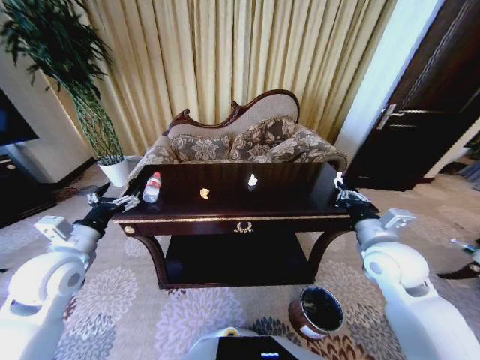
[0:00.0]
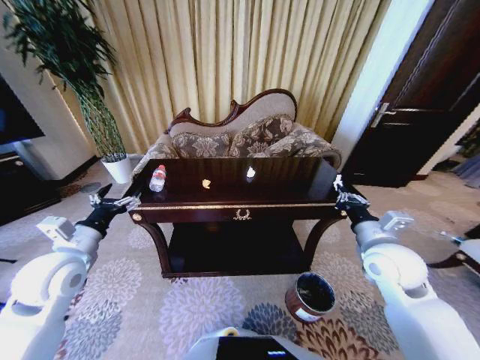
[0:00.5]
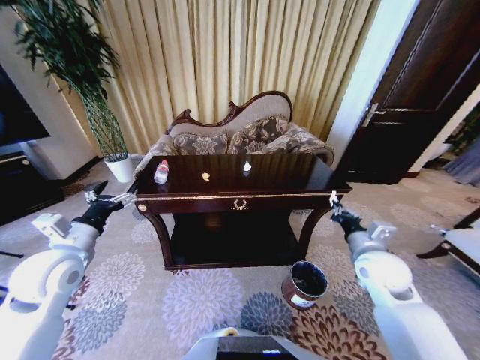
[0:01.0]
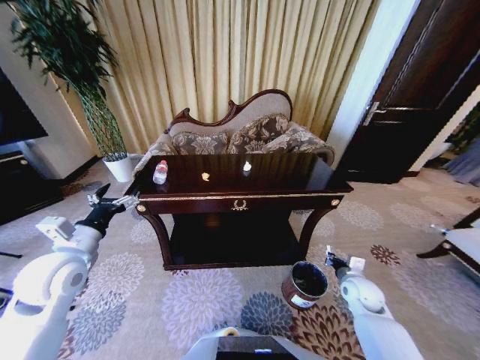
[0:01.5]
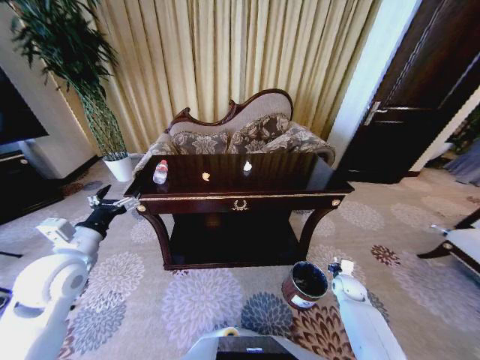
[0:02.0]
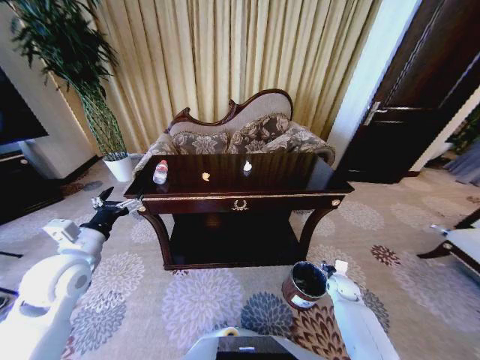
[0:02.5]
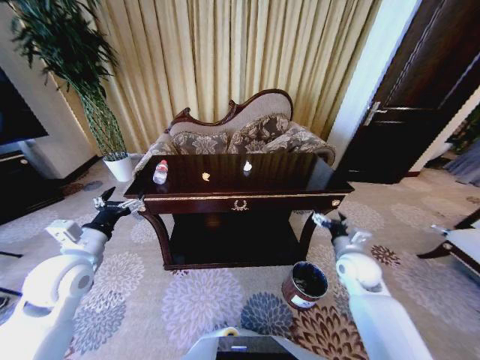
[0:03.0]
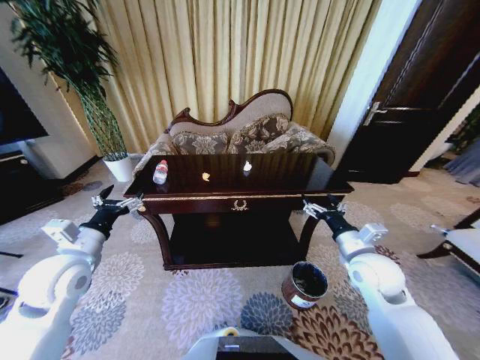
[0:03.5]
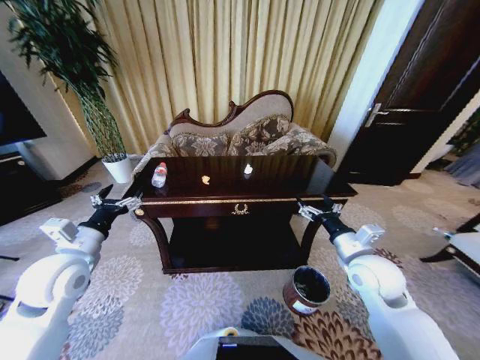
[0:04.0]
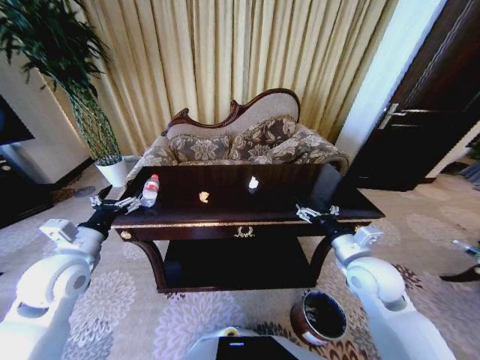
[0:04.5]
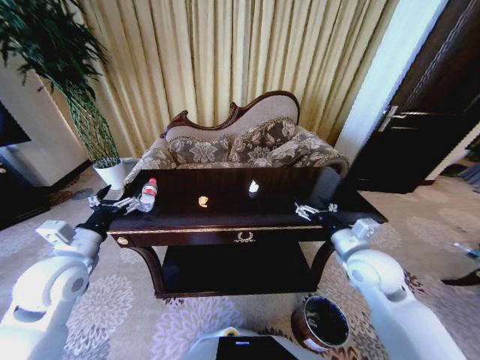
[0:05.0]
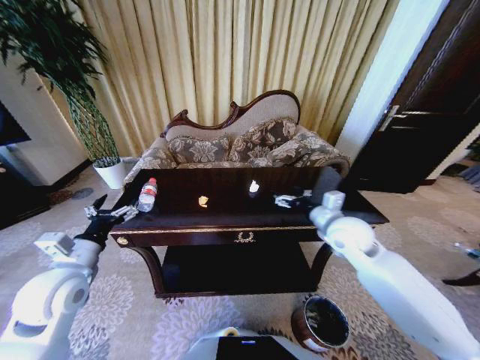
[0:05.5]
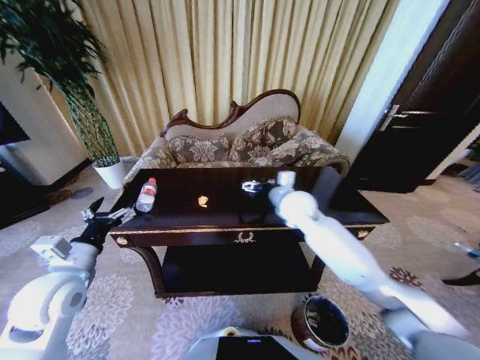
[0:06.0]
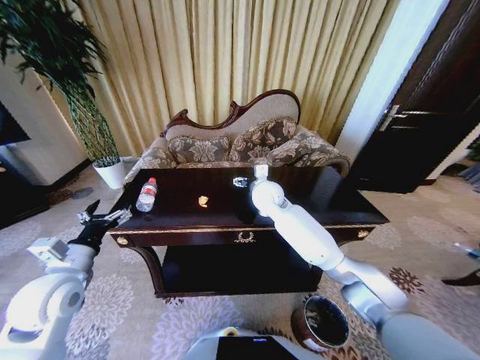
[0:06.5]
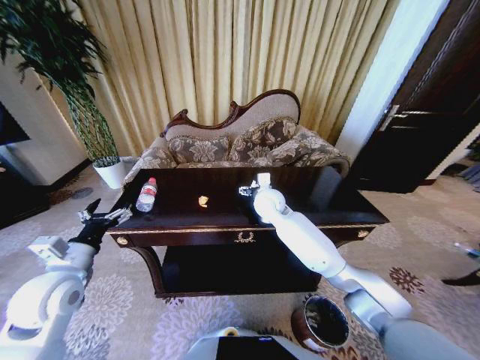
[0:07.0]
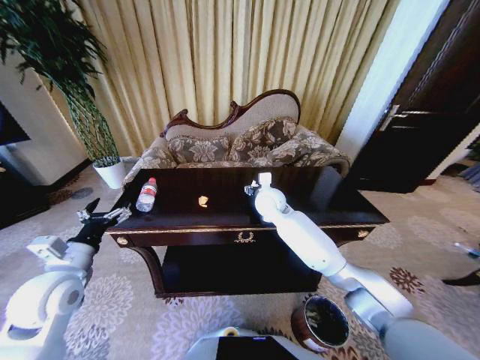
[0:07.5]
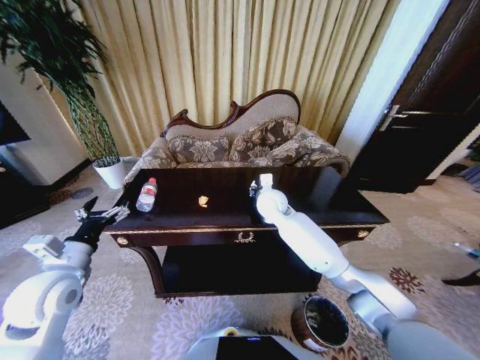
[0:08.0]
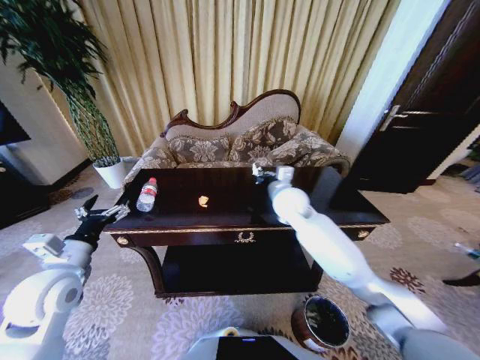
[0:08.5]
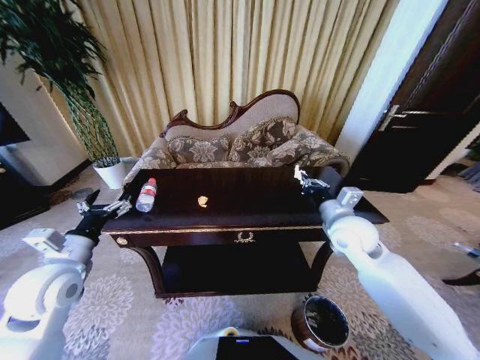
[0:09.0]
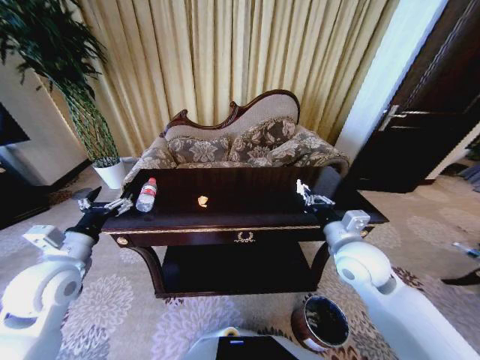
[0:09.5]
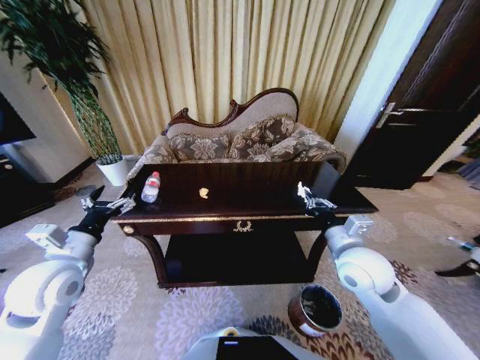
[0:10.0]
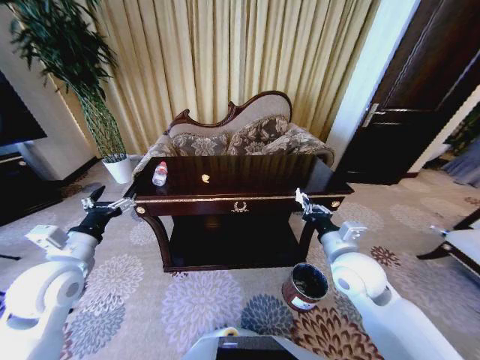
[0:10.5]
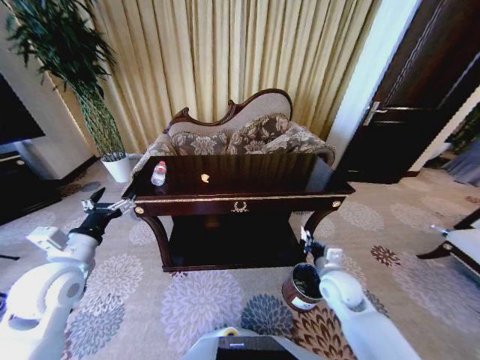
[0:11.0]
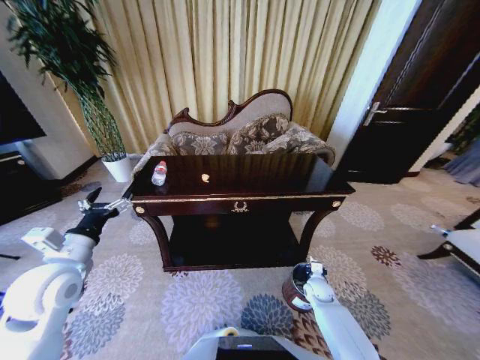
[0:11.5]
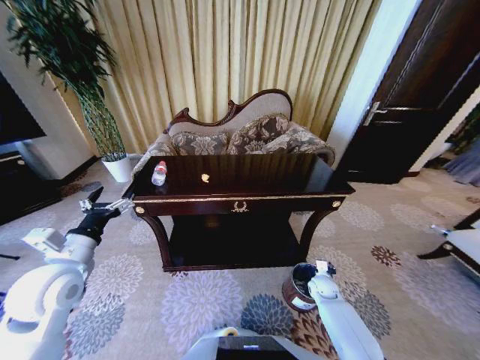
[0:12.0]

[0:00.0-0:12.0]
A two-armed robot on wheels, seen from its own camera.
Task of the whole recording: Move to the front of the table and place the trash on the table into the trash bin.
0:00.0 to 0:02.0: The right gripper goes about 30 cm downward.
0:02.0 to 0:04.0: The right gripper is displaced upward and to the left by approximately 30 cm, and opens its fingers.
0:04.0 to 0:06.0: The right gripper travels forward and to the left by about 25 cm.
0:06.0 to 0:08.0: The right gripper shifts by about 5 cm, and closes up.
0:08.0 to 0:10.0: The right gripper moves backward and to the right, roughly 25 cm.
0:10.0 to 0:12.0: The right gripper shifts approximately 35 cm downward.

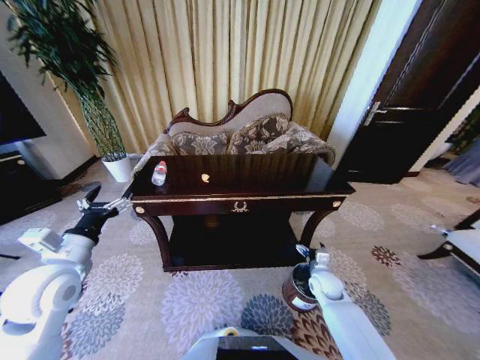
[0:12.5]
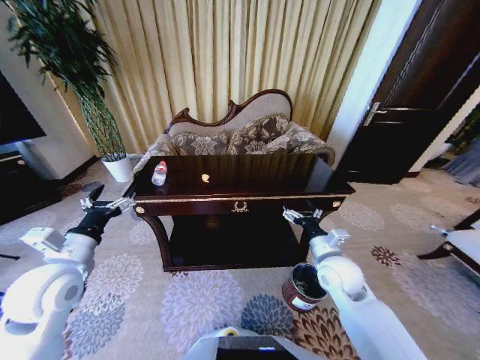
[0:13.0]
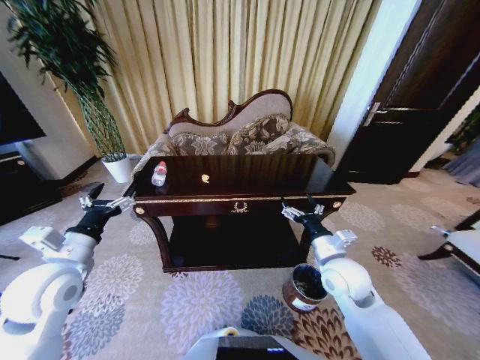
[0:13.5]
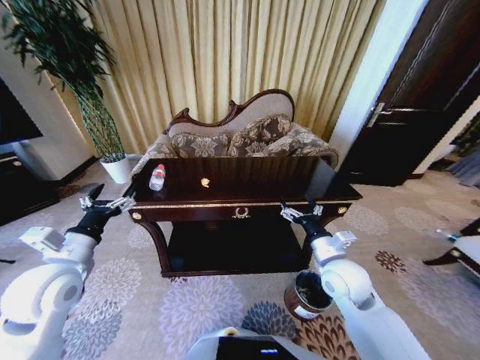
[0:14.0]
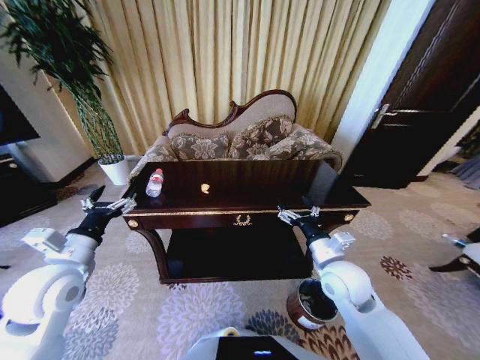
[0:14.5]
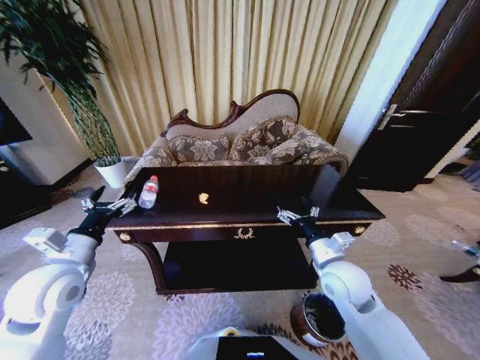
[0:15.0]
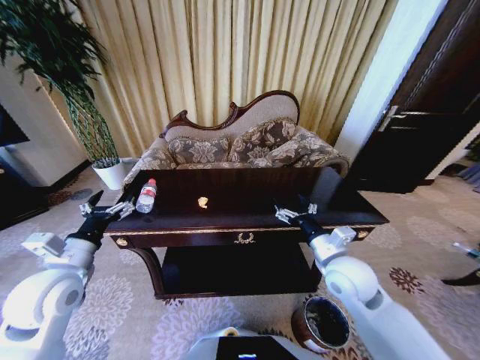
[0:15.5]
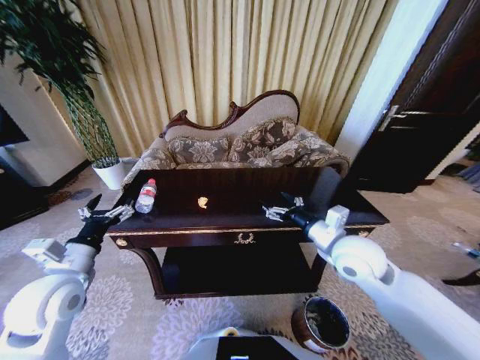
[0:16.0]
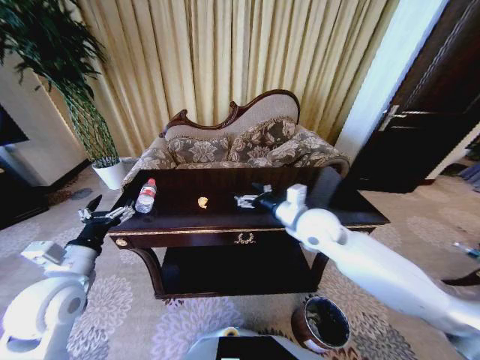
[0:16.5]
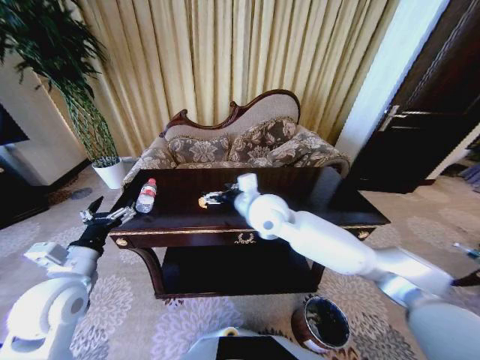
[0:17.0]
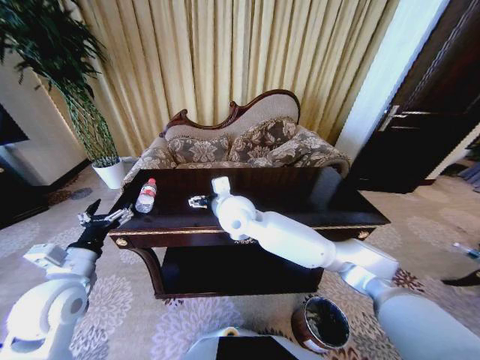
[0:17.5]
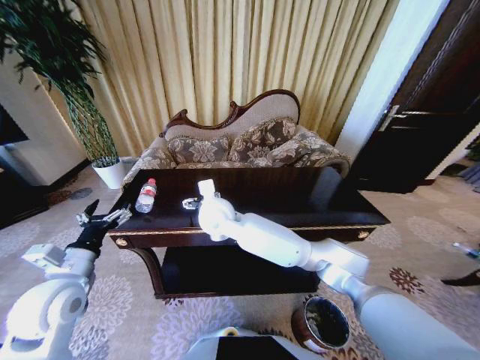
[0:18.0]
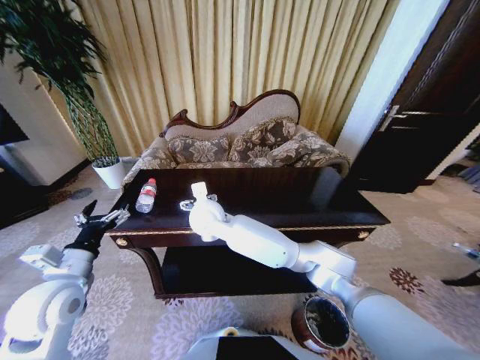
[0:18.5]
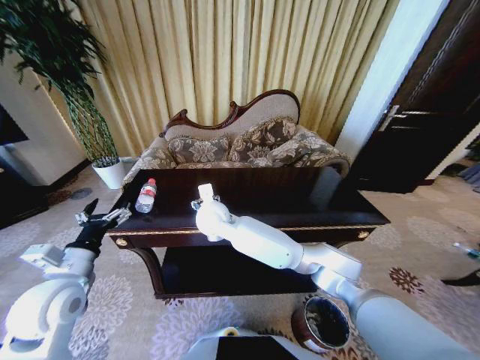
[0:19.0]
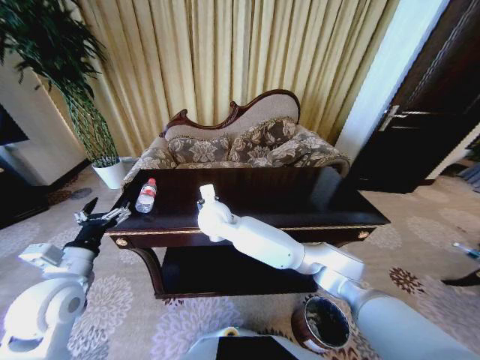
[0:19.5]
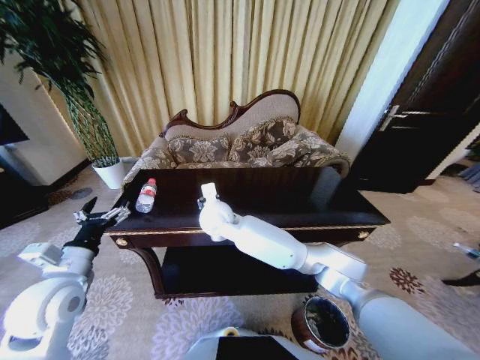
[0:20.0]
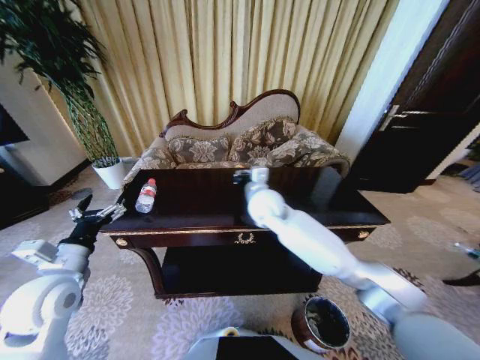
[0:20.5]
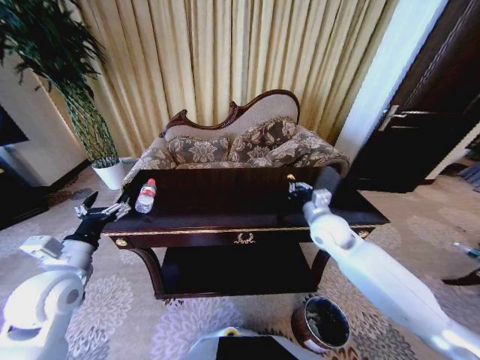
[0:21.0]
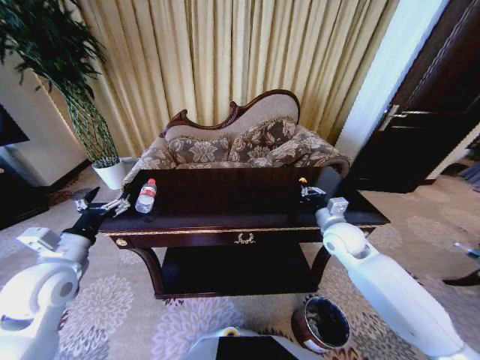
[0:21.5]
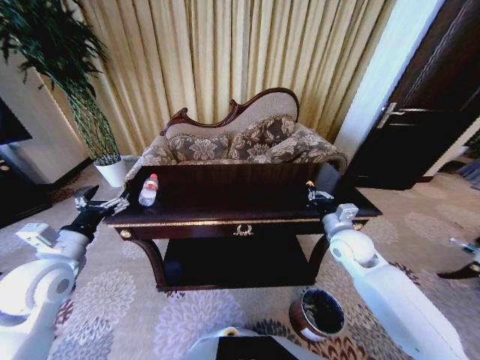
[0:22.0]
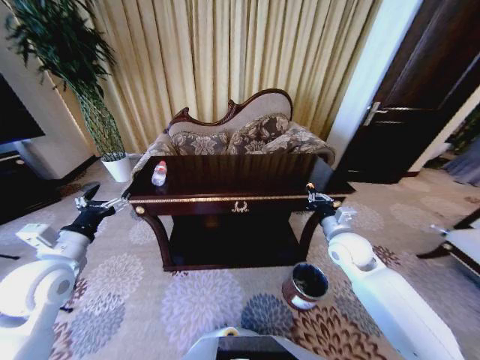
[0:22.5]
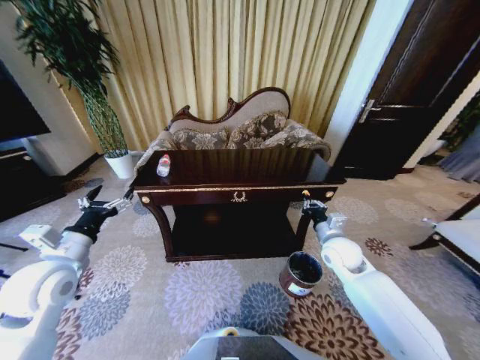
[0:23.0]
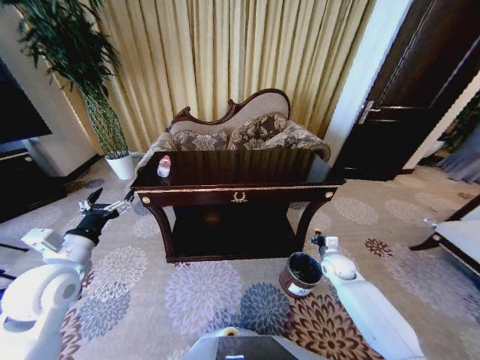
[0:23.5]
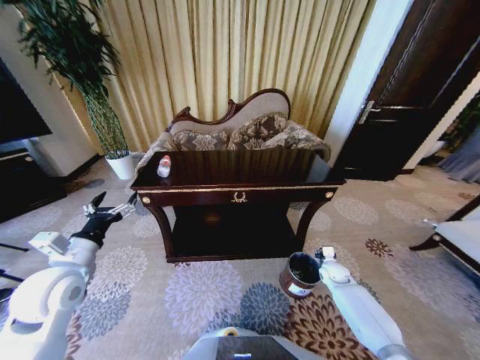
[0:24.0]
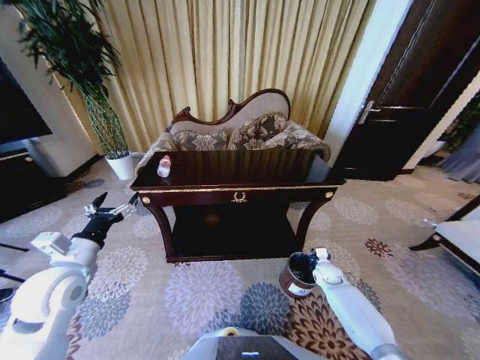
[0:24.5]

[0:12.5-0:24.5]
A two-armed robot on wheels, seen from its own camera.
Task of the whole recording: Move to the front of the table and place the trash on the table into the trash bin.
0:12.5 to 0:14.5: The right gripper is displaced upward by approximately 20 cm.
0:14.5 to 0:16.5: The right gripper travels forward, upward and to the left by about 15 cm.
0:16.5 to 0:18.5: The right gripper goes about 25 cm to the left.
0:18.5 to 0:20.5: The right gripper shifts about 15 cm to the right, and closes.
0:20.5 to 0:22.5: The right gripper heads to the right, covering some 20 cm.
0:22.5 to 0:24.5: The right gripper travels downward by roughly 25 cm.

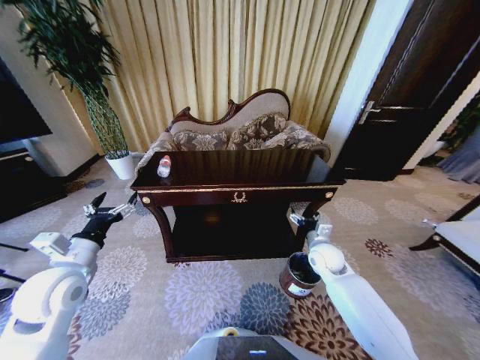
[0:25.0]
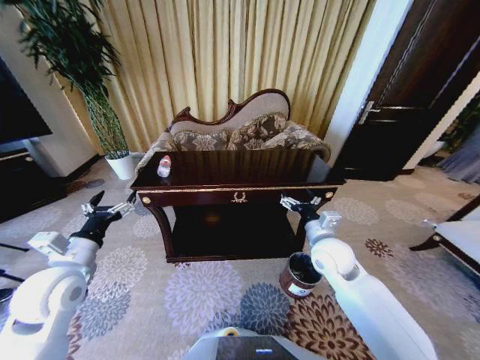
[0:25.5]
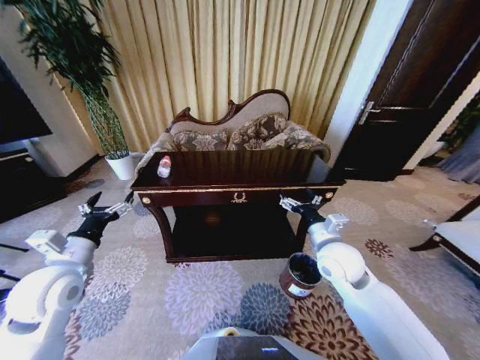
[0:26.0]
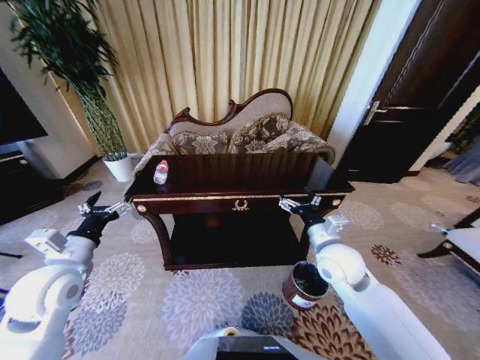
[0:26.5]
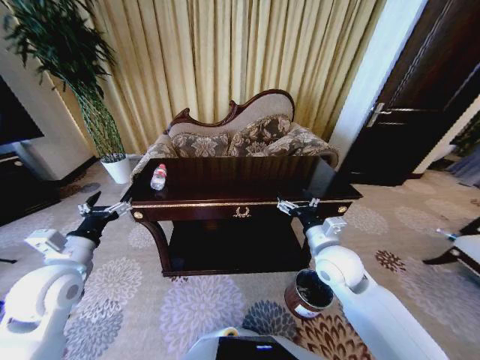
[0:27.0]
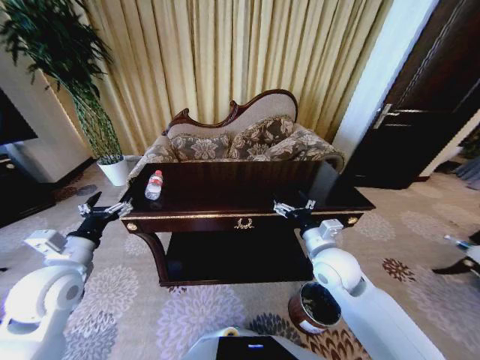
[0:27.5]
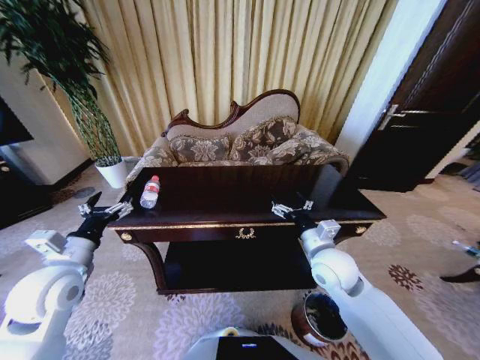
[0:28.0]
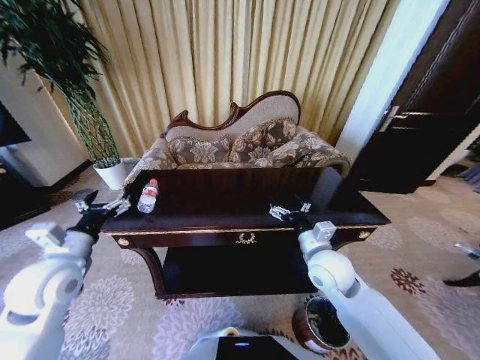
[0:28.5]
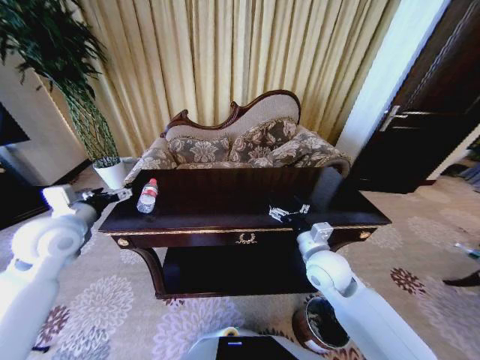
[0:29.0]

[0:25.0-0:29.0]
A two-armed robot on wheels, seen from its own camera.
Task of the whole recording: Move to the front of the table and place the trash on the table into the trash bin.
0:25.0 to 0:27.0: The right gripper heads upward, backward and to the left, covering roughly 15 cm.
0:27.0 to 0:29.0: The left gripper is displaced forward and upward by about 10 cm.
